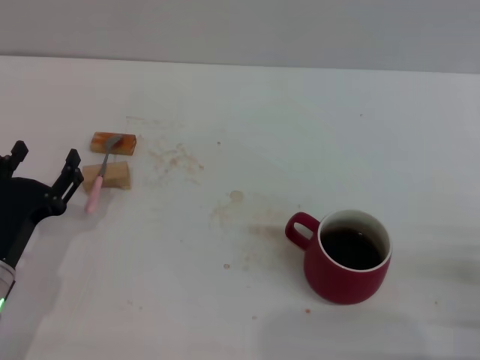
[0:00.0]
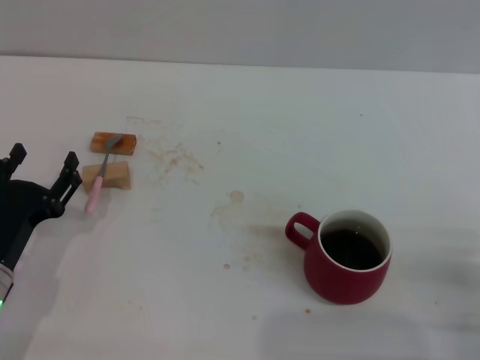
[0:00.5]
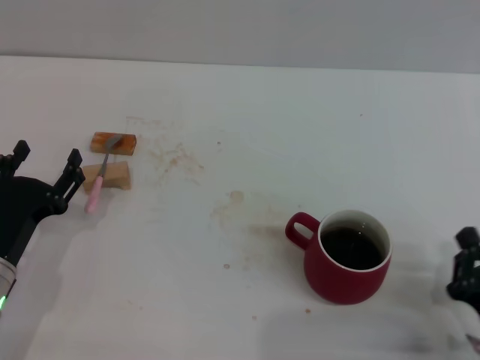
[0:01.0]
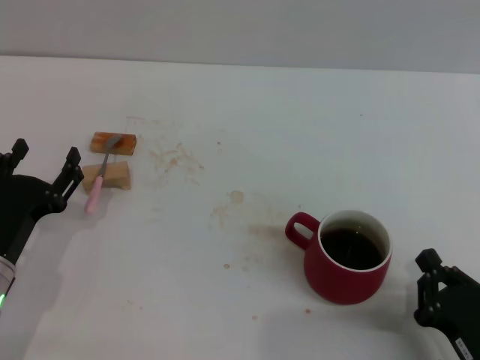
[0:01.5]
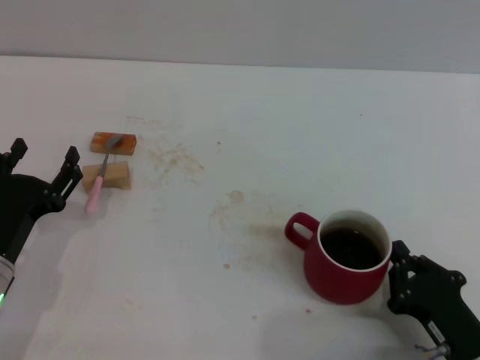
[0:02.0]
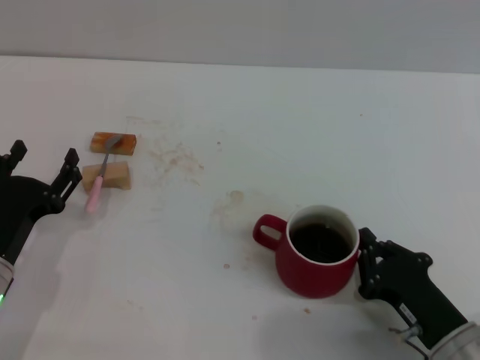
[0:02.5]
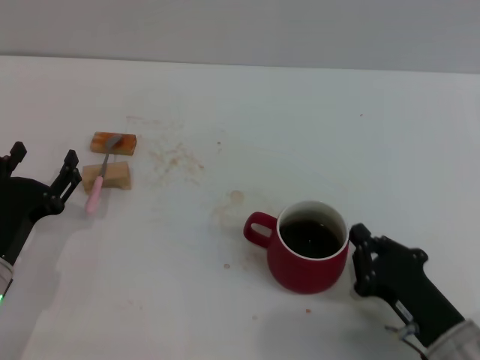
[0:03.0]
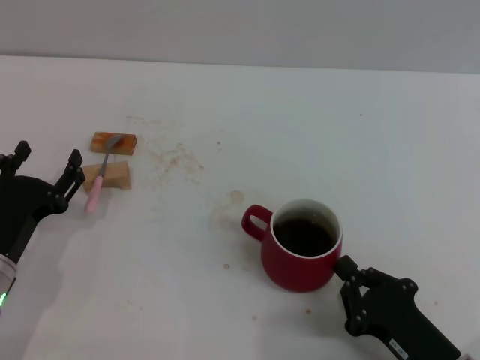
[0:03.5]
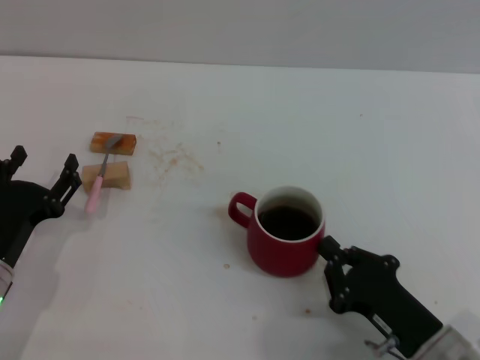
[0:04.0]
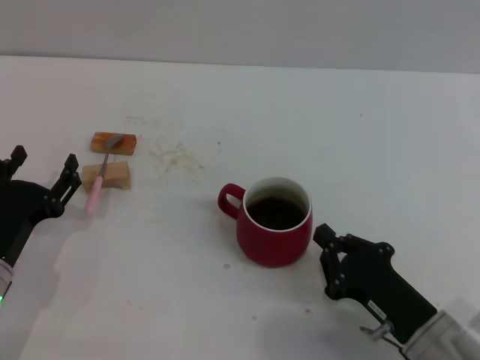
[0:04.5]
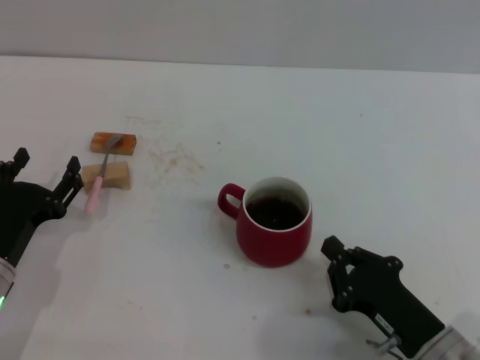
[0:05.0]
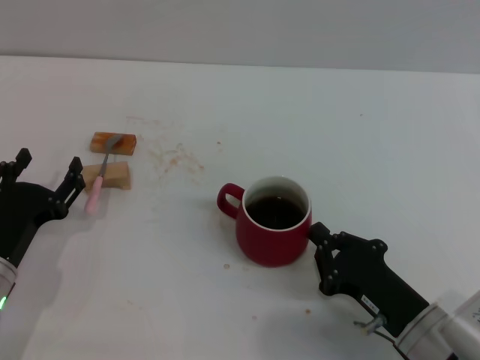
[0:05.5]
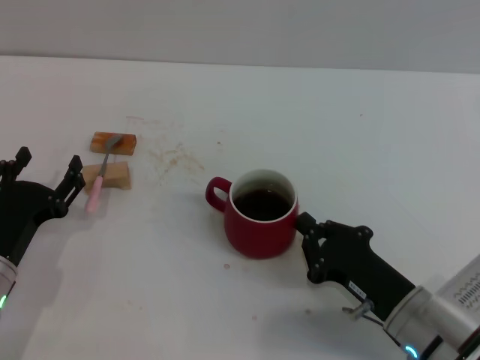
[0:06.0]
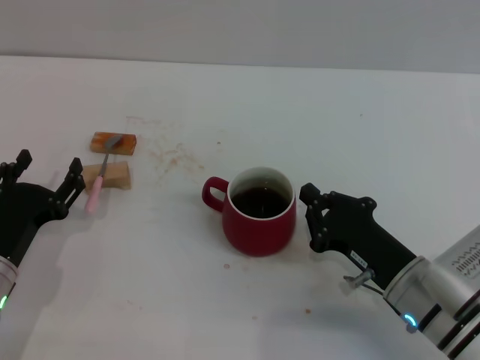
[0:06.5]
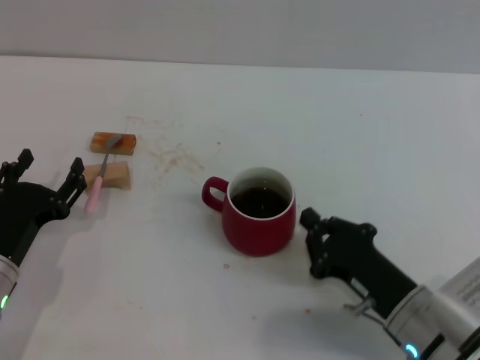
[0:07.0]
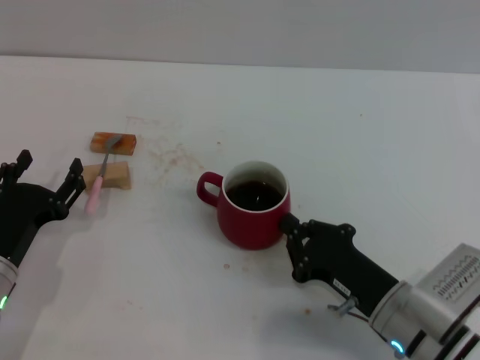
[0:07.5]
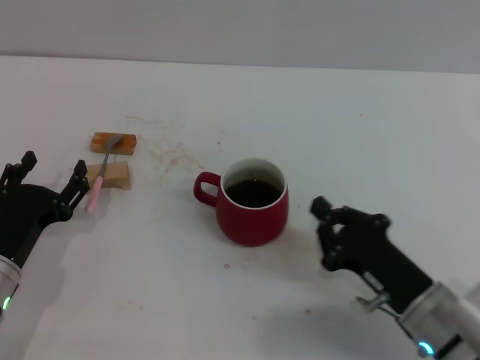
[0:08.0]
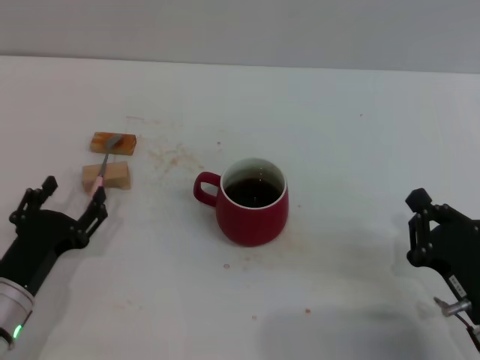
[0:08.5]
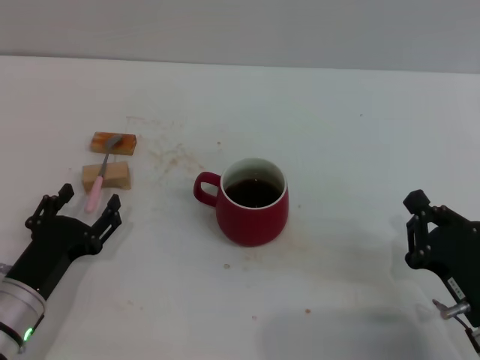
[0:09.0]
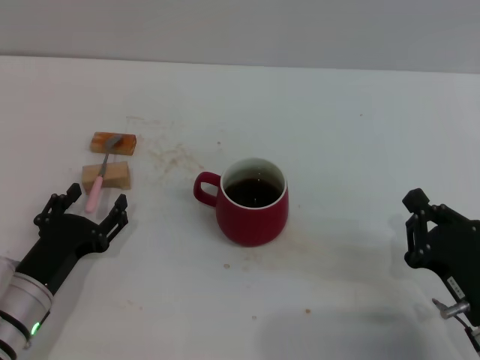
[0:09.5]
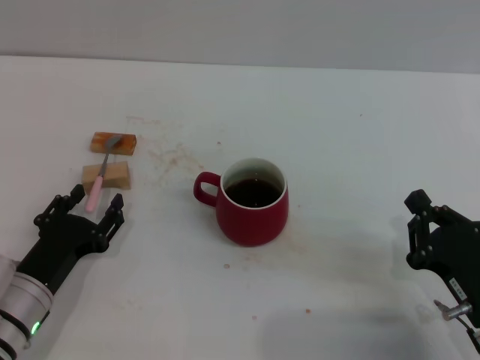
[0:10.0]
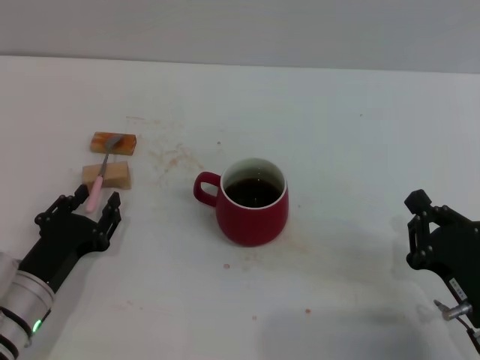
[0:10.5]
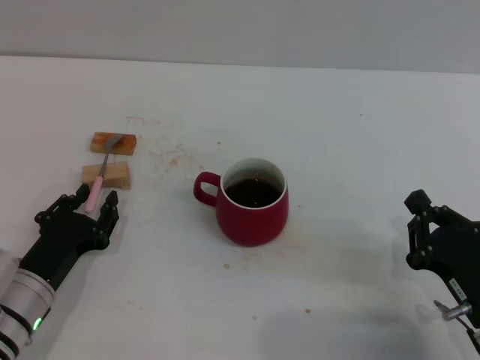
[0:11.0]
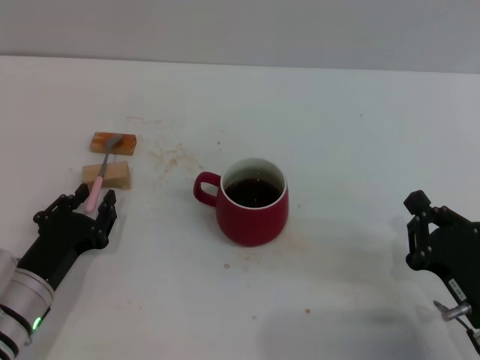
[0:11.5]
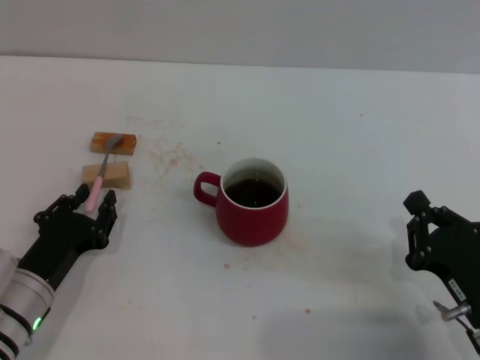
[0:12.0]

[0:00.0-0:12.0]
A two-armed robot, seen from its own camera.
Task of the whole recording: Move the red cup to the center, lift the pink spoon, stir it three times in the cup, and put the spoon into the cup.
Step, 0:00.0 to 0:07.5: Move the cup with coffee to the center of view with the right gripper.
0:00.0 to 0:02.0: The right gripper is displaced to the left by some 10 cm.
0:02.0 to 0:04.0: The grippers make only small movements.
0:04.0 to 0:06.0: There are only small adjustments of the grippers.
0:06.0 to 0:08.0: The grippers move only a little.
0:08.0 to 0:10.0: The right gripper shifts about 5 cm to the right.
0:10.0 to 0:12.0: The left gripper closes its fingers.

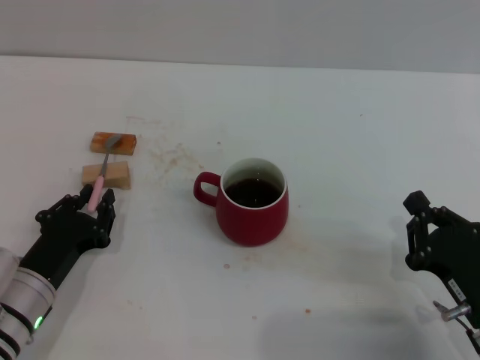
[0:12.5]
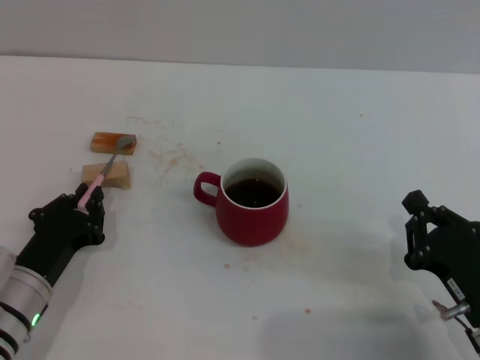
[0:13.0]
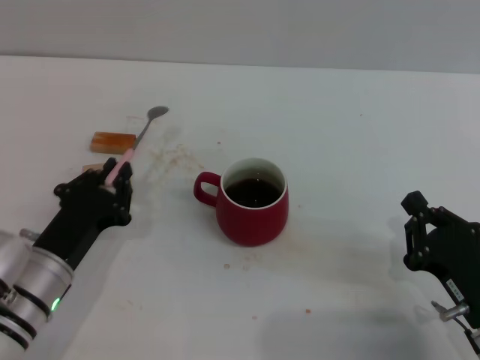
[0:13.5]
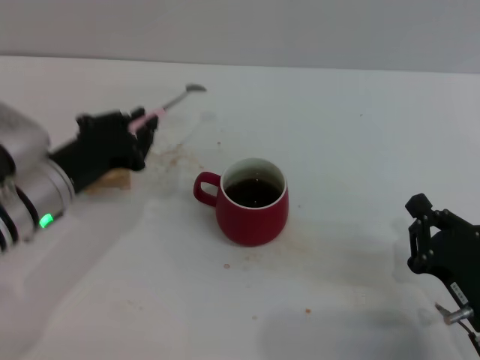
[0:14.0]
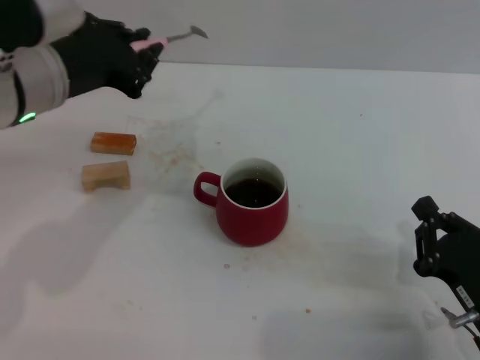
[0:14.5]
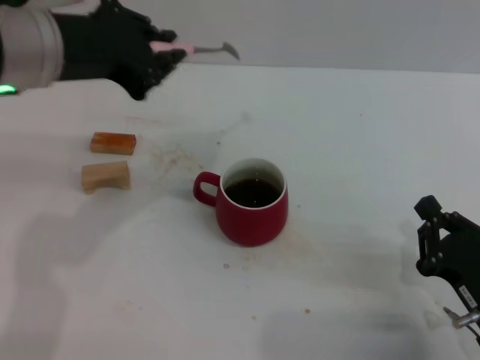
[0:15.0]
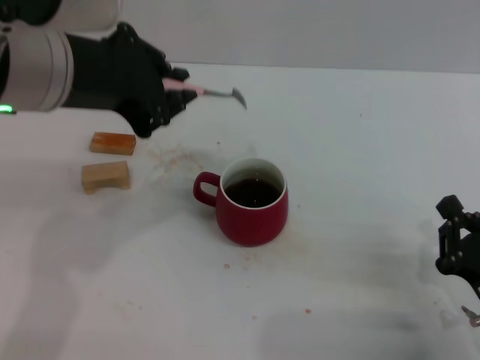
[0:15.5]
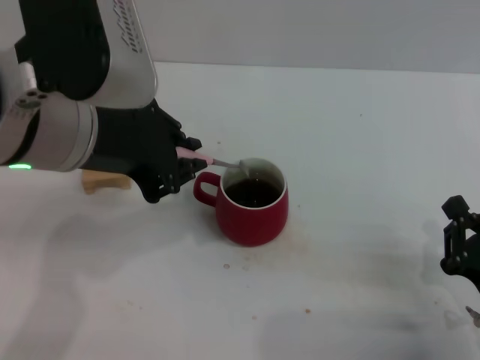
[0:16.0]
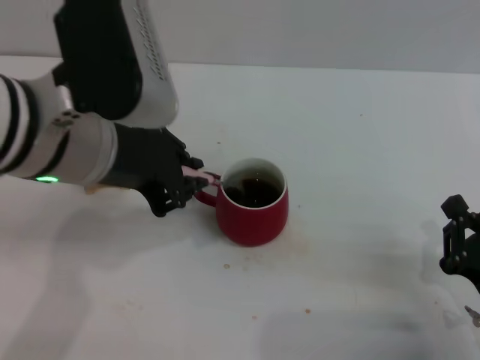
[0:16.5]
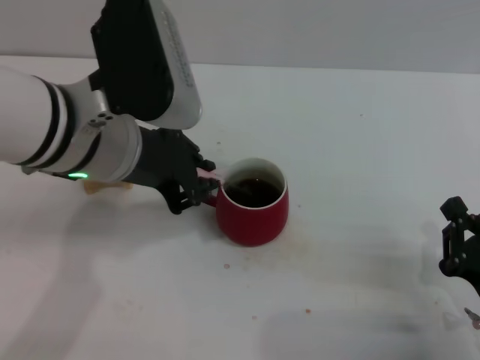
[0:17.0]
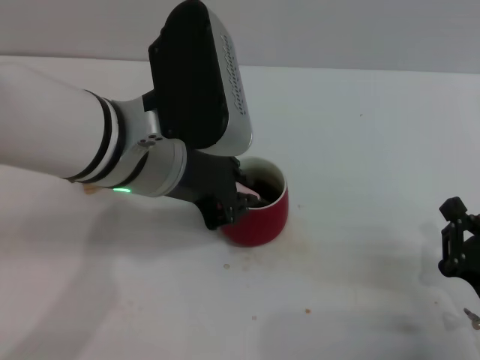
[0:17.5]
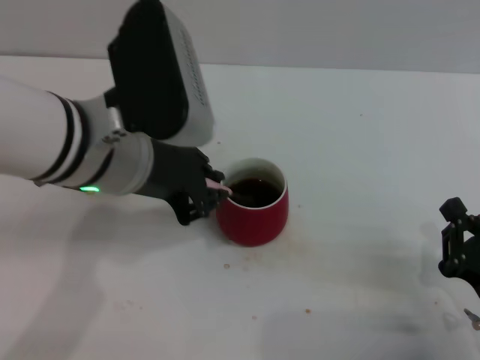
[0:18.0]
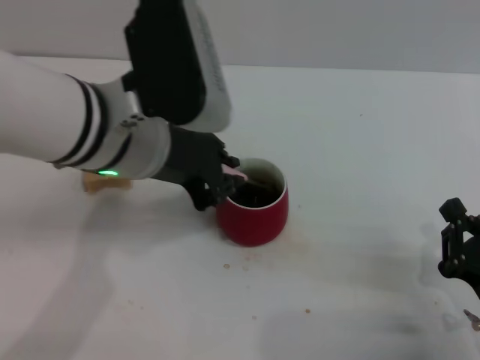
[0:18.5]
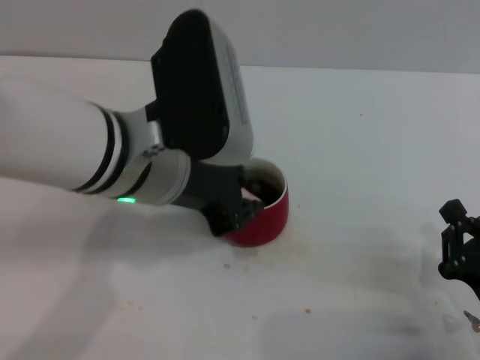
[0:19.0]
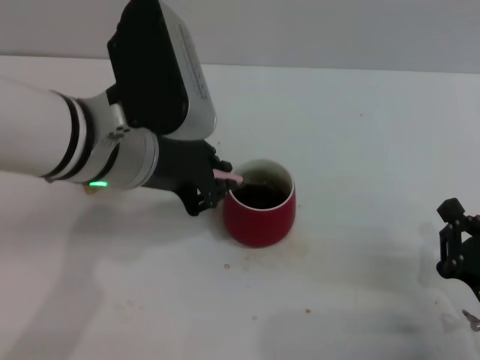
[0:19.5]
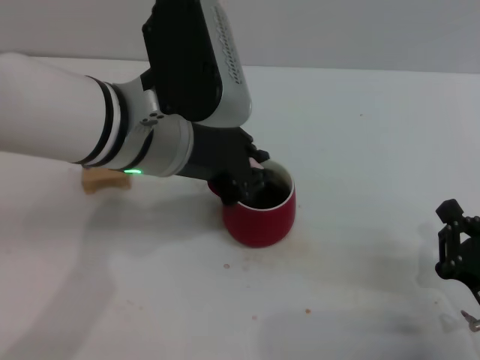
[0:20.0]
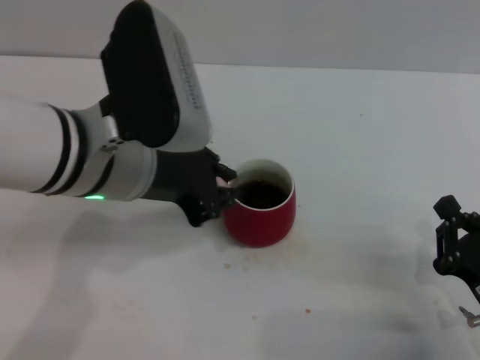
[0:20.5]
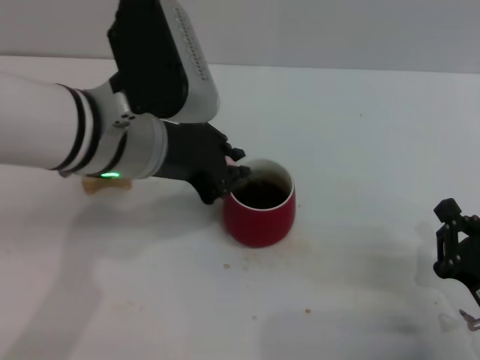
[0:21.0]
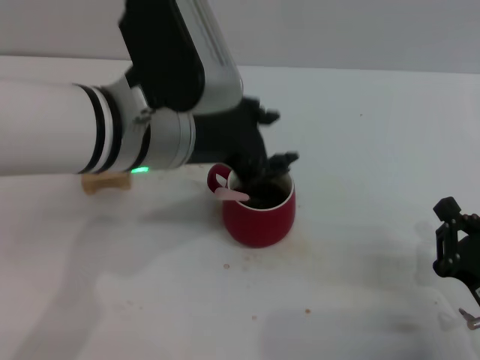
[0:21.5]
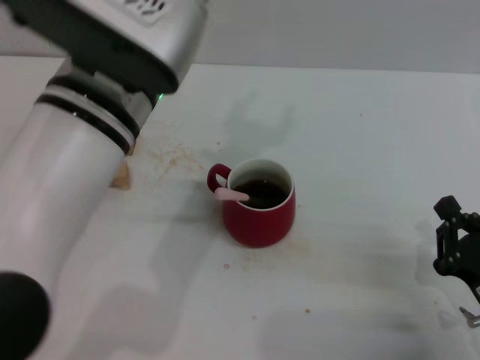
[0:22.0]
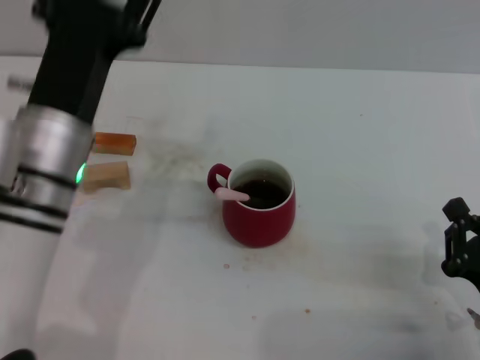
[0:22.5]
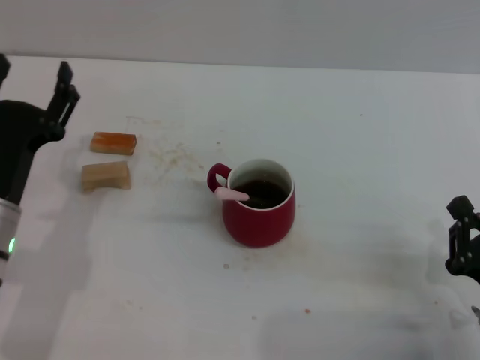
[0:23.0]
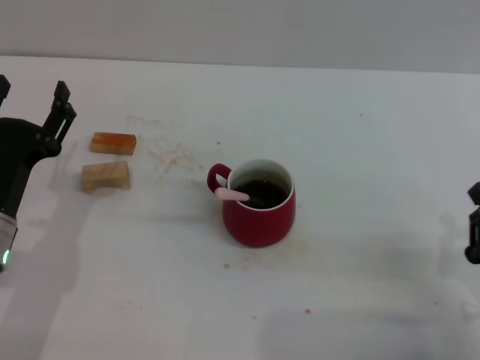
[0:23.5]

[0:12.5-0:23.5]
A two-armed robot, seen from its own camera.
Task of the whole recording: Move the red cup to the center, lift the pink spoon, stir it three times in the cup, and put the spoon into the cup.
Step, 0:14.5 to 0:21.0: Stir the coffee in the cup with the left gripper.
0:12.5 to 0:14.5: The left gripper goes some 25 cm upward and forward.
0:14.5 to 0:16.0: The left gripper heads backward, covering about 5 cm.
0:16.0 to 0:18.0: The left gripper goes approximately 5 cm downward.
0:18.0 to 0:21.5: The grippers stay close to where they were, moving slightly.
0:21.5 to 0:23.5: The left gripper shifts roughly 20 cm downward and to the left, and opens its fingers.
